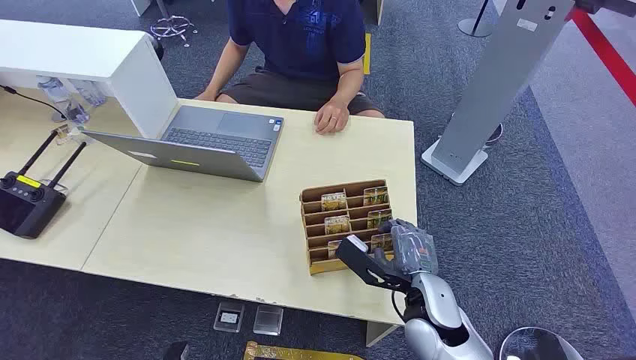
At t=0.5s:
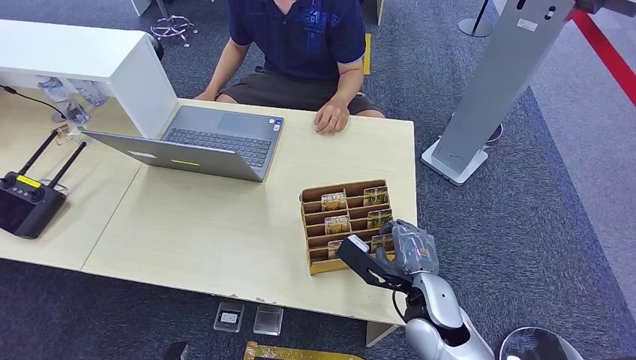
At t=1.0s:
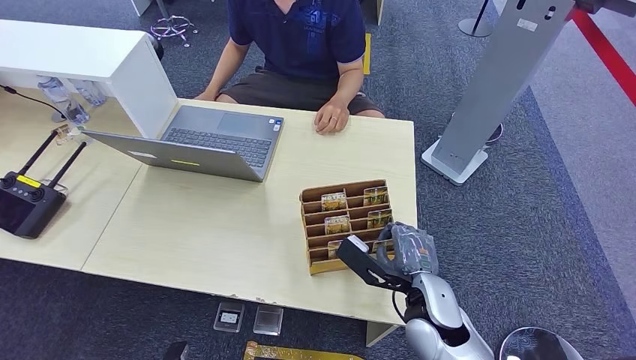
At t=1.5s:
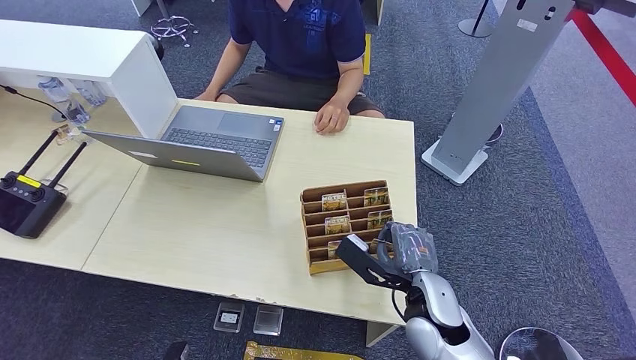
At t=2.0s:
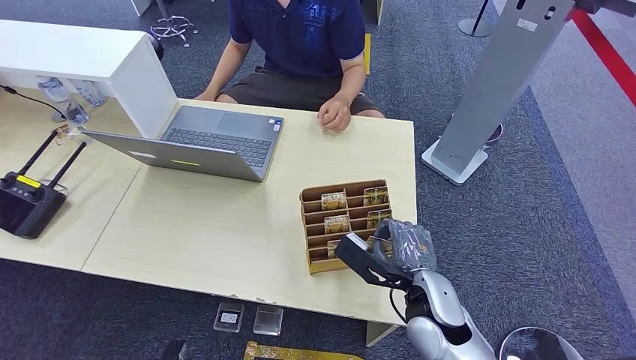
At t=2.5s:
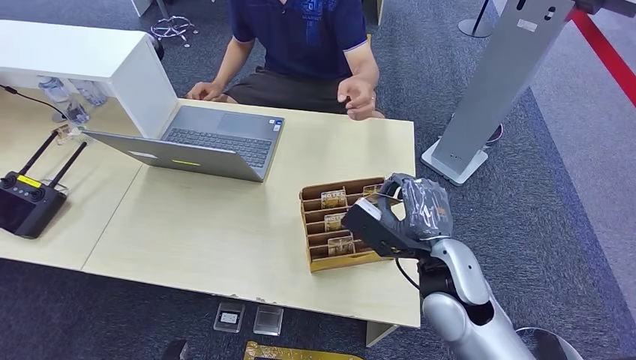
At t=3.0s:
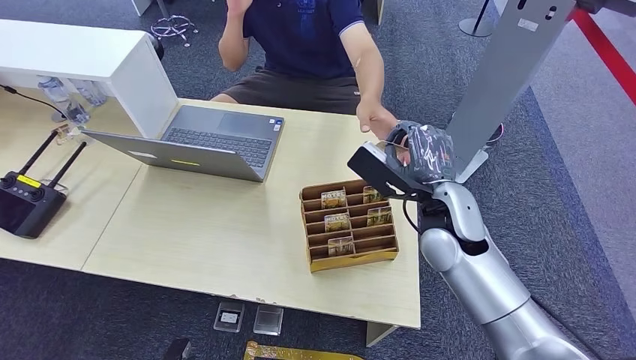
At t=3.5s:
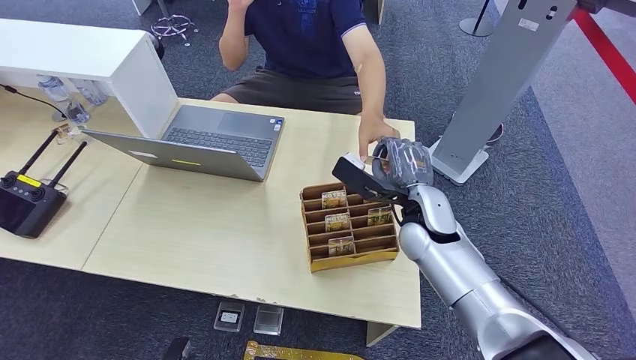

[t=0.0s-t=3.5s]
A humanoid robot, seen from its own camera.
Step, t=0.0s to t=2.0s: Pick up the key card from the card box.
Step, t=3.0s to t=3.5s: Hand the key card to the target.
t=2.0s to t=3.5s: The right hand heads forward and upward, covering about 15 cm.
